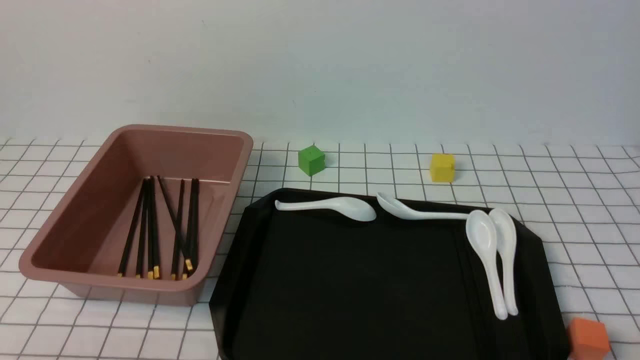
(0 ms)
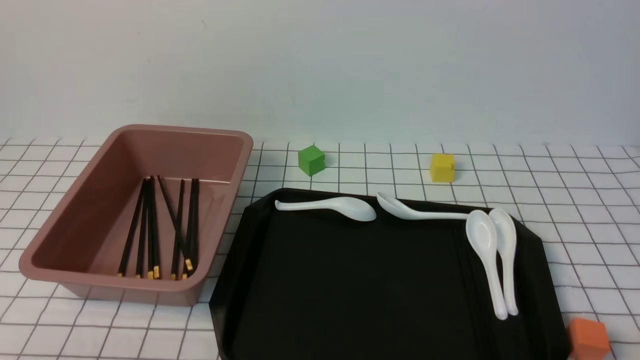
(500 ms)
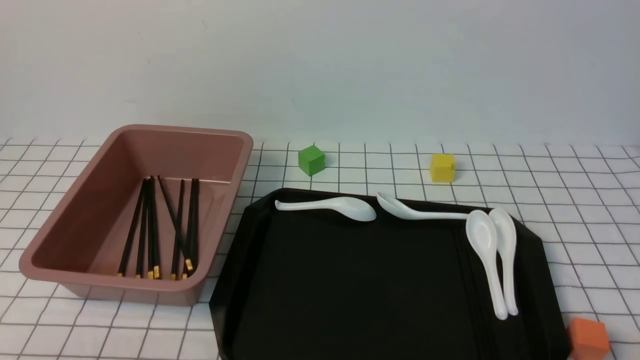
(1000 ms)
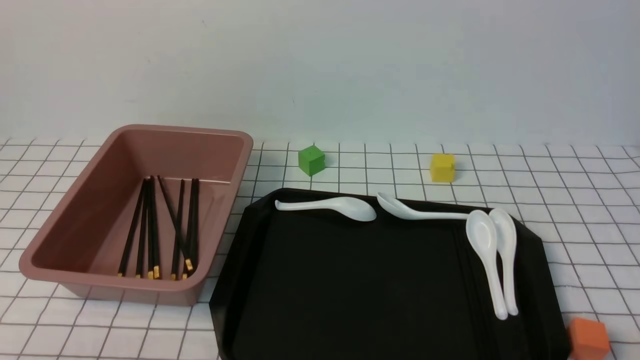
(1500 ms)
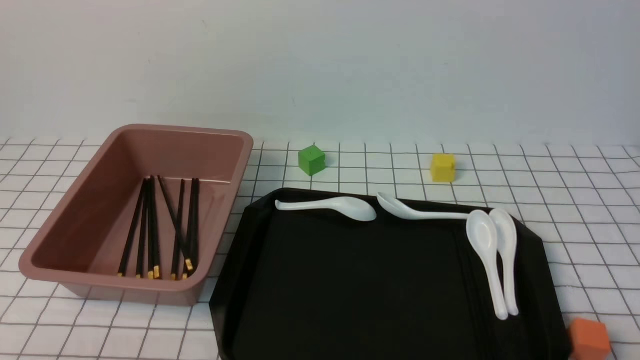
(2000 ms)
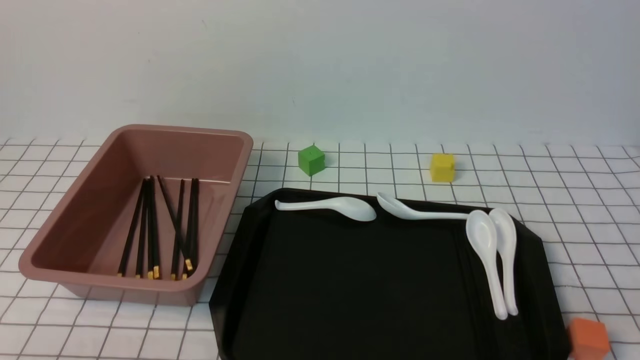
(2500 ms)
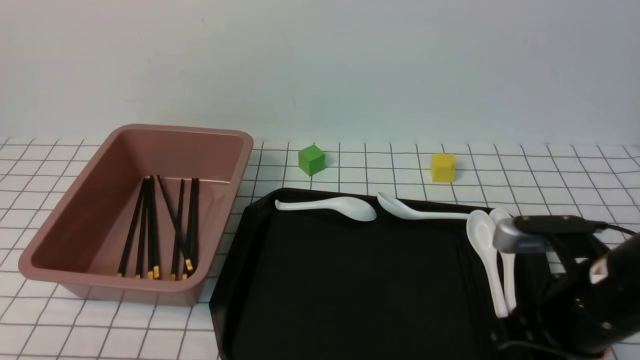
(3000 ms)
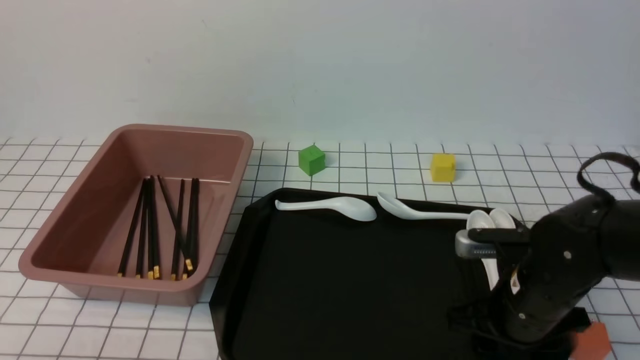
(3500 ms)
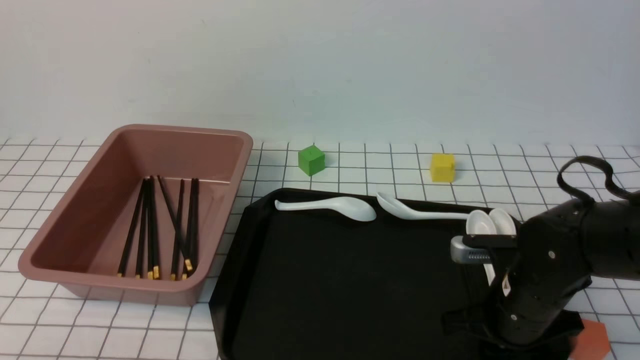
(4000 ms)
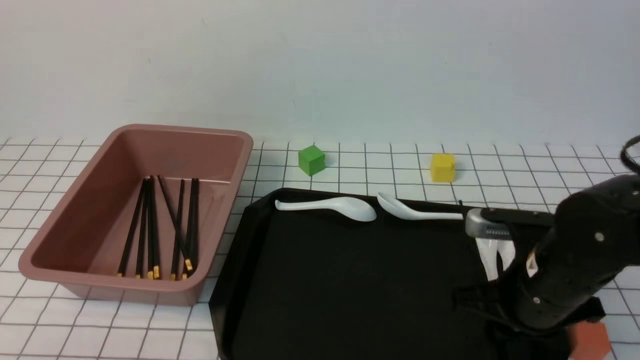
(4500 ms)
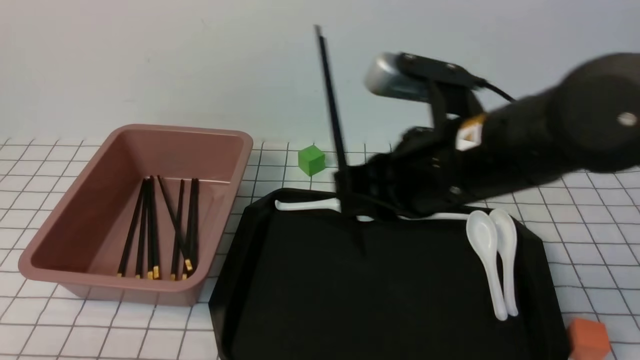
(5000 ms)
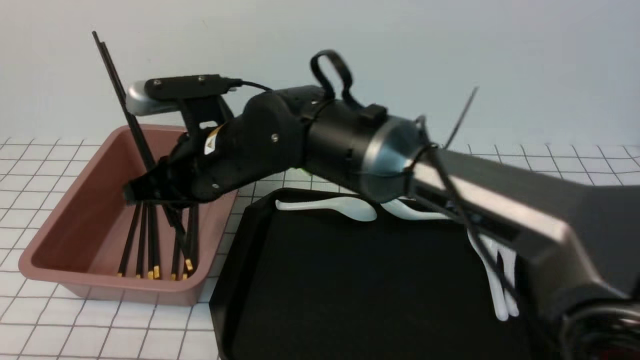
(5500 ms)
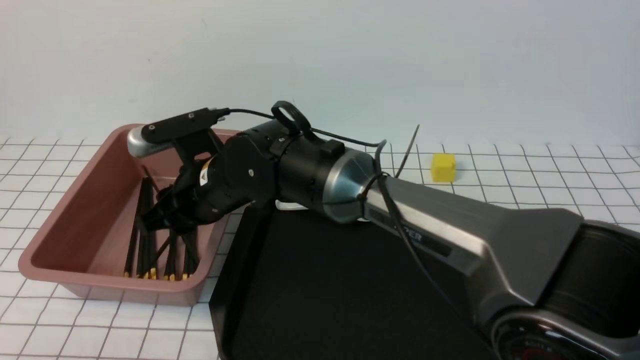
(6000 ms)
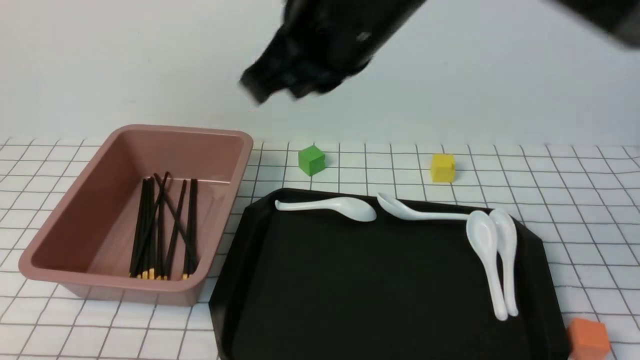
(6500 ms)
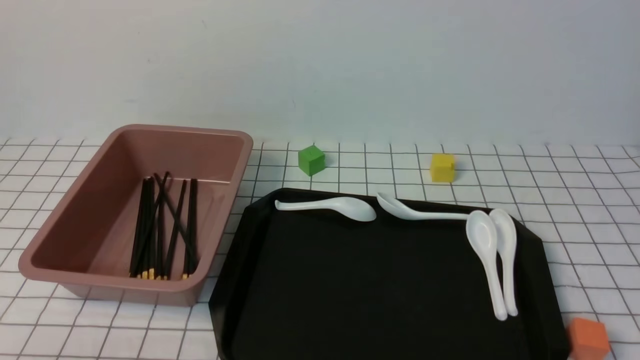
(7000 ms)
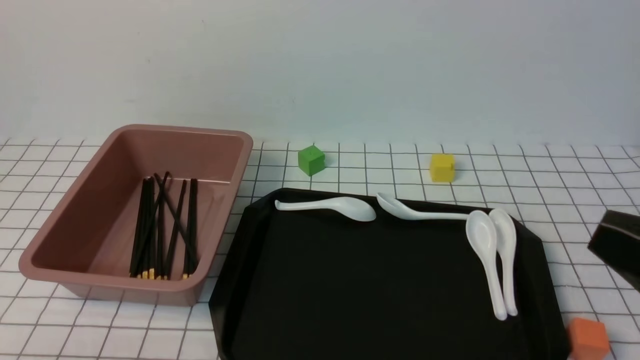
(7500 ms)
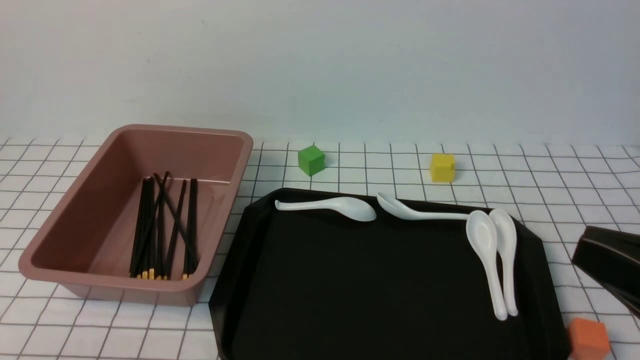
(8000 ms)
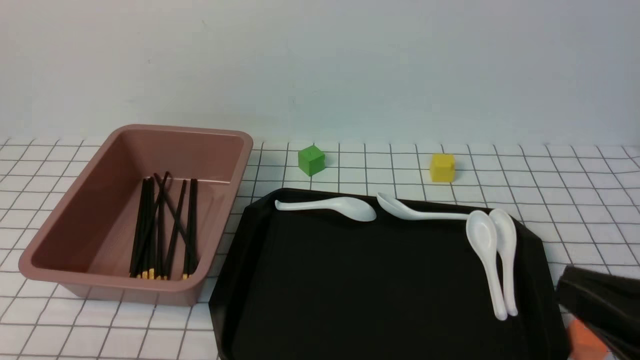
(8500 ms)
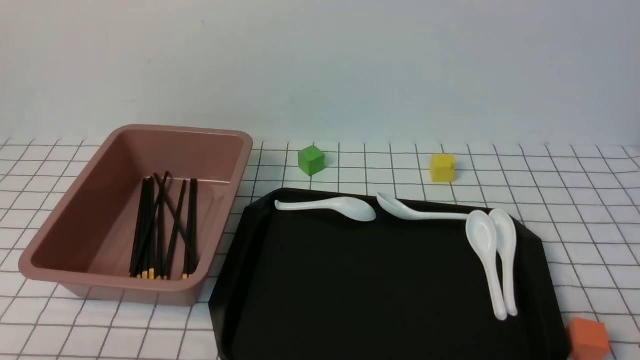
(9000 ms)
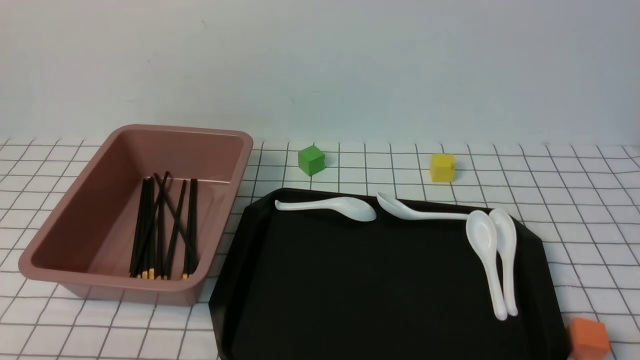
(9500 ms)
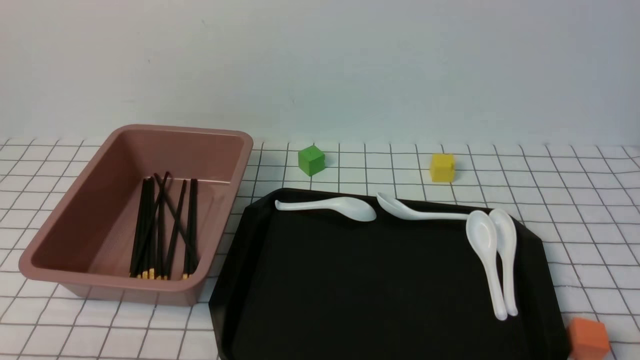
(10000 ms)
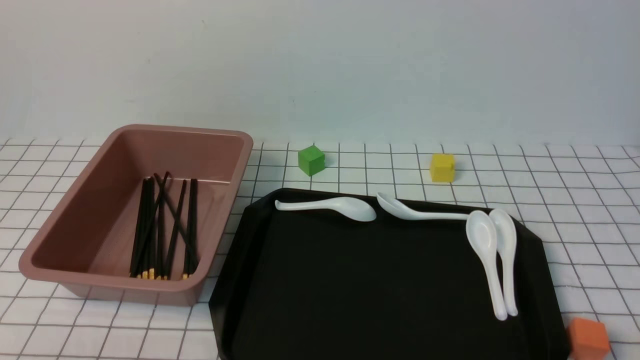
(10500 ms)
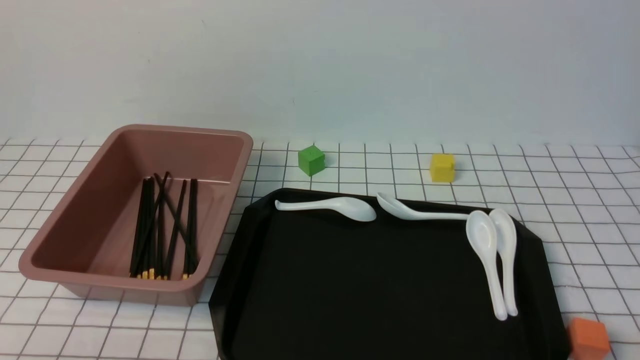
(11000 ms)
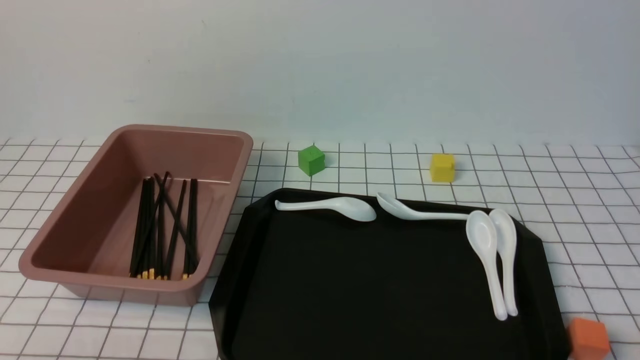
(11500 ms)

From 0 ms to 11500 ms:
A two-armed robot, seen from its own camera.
Step, from 0 ms to 4000 ms: use the right arm to grab a pair of chopsticks.
Step, from 4500 ms to 6000 ms: use the right arm to put the chopsticks into the lunch box.
From 2000 ms to 4000 ms: The right gripper is displaced forward and to the left by approximately 25 cm, and closes, then opens again.
From 4000 ms to 6000 ms: The right gripper travels to the left by some 30 cm.
From 6000 ms to 7500 ms: The right gripper heads to the right and backward, covering some 40 cm, and closes up.
From 7500 ms to 9500 ms: The right gripper shifts about 15 cm downward.
From 9500 ms to 11500 ms: Both grippers stay put.
